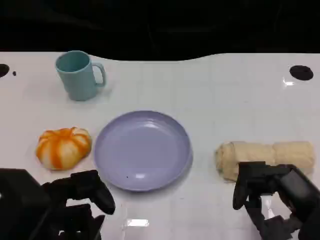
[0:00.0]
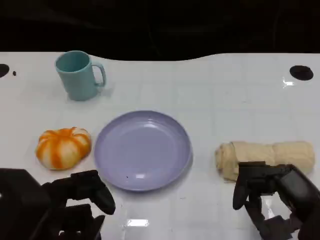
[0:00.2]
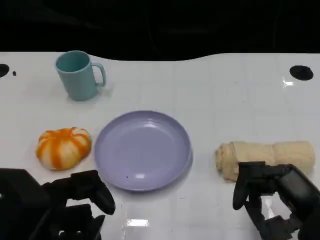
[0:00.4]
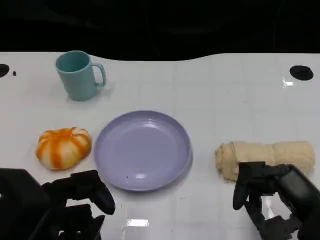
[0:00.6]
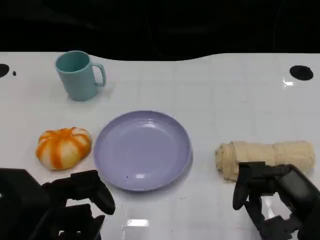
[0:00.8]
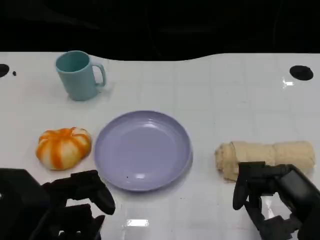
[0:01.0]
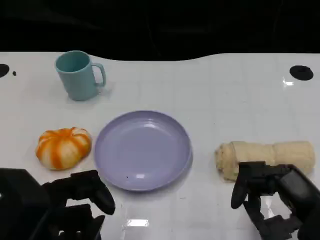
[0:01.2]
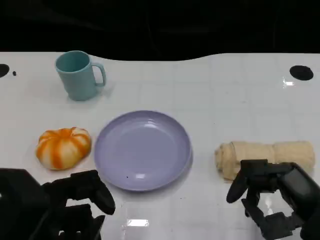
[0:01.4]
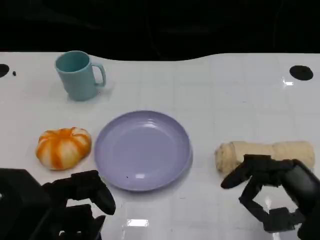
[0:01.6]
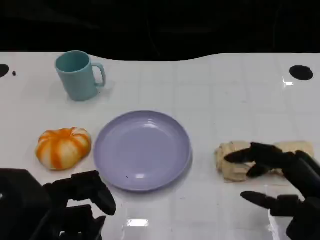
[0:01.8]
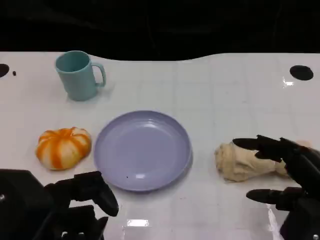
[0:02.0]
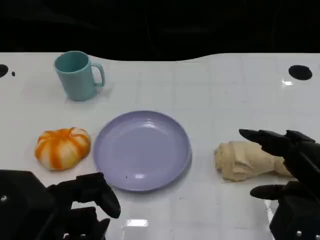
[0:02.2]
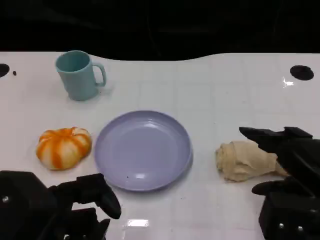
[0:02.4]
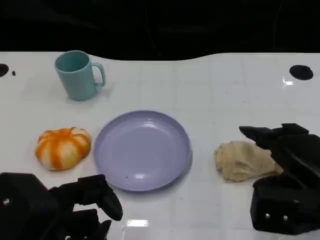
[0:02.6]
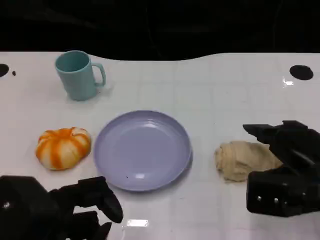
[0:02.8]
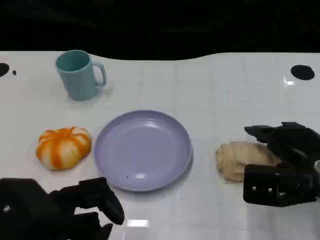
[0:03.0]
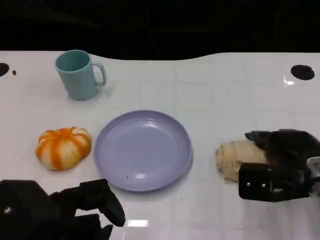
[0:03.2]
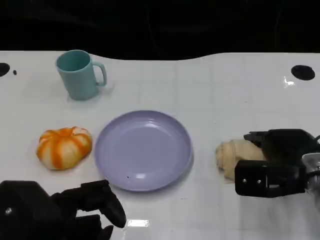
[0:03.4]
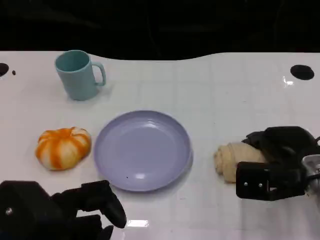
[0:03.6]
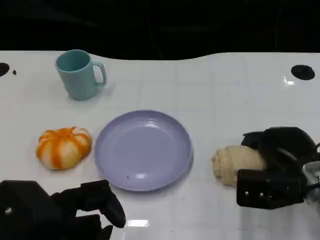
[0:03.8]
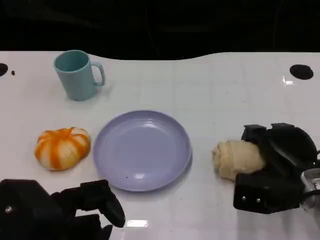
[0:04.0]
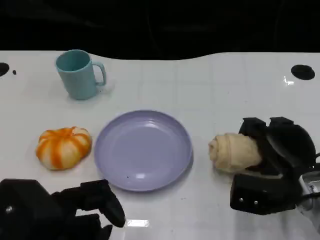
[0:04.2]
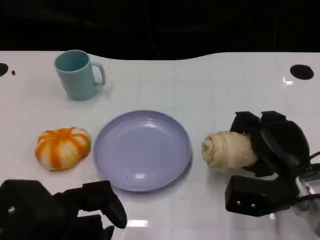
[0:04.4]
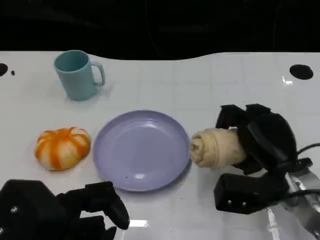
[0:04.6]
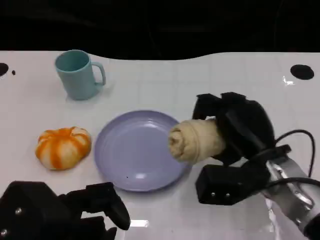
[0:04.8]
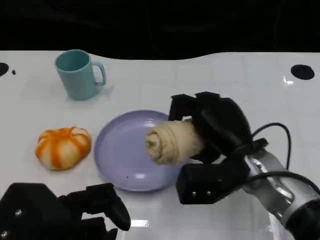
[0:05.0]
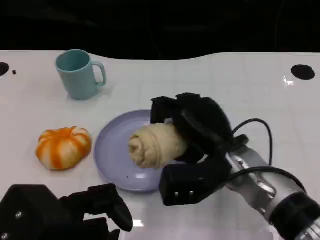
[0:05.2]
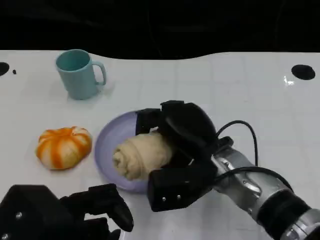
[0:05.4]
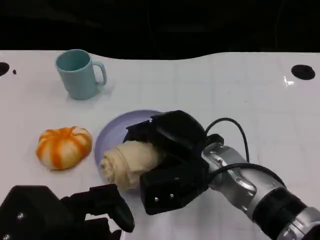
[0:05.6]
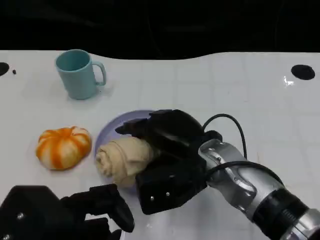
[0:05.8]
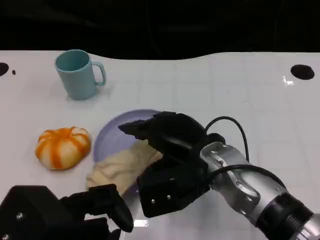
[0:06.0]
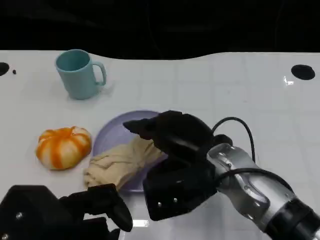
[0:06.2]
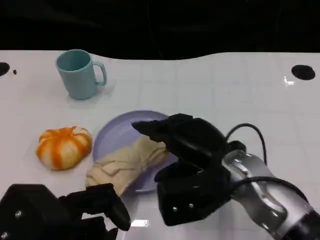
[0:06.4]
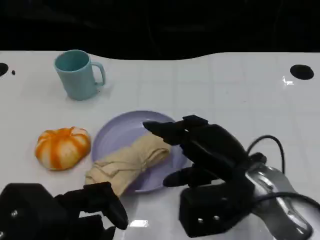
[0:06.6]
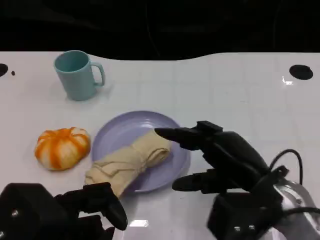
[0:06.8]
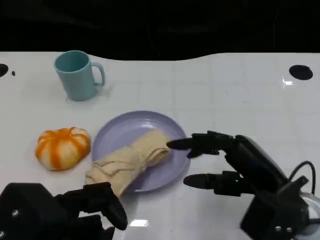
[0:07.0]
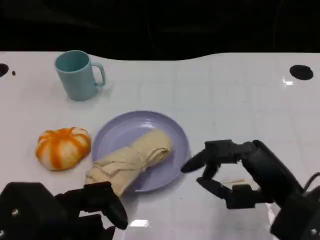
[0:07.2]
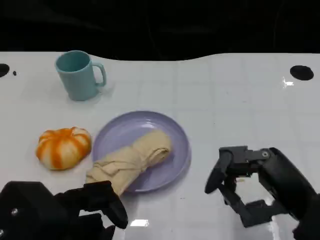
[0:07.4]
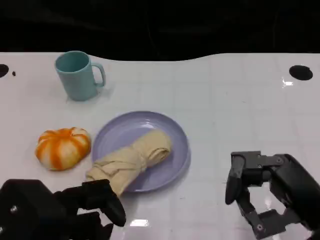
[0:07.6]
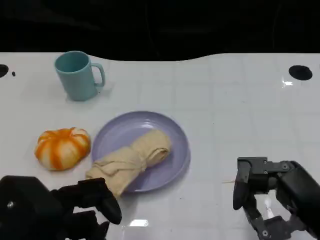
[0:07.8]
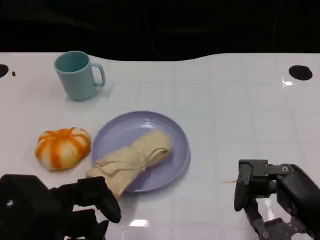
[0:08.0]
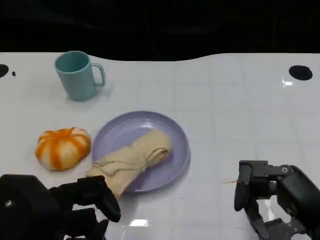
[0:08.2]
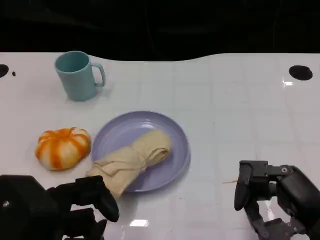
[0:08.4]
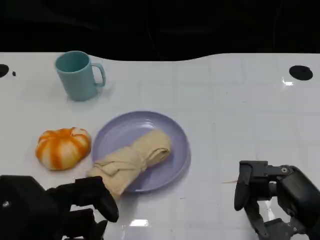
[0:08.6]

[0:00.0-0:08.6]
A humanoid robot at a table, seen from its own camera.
Task of the whole recording: Grasp the towel on the left side of the plate with the left hand and place it into the plate.
0:00.0 to 0:01.4: The two hands keep their place.
0:01.4 to 0:02.8: The right hand travels forward by approximately 10 cm.
0:02.8 to 0:04.4: The right hand ends up roughly 5 cm from where it was.
0:04.4 to 0:05.8: The right hand is displaced to the left and upward by some 15 cm.
0:05.8 to 0:07.2: The right hand is displaced to the right and backward by approximately 15 cm.
0:07.2 to 0:08.6: The hands move only a little.

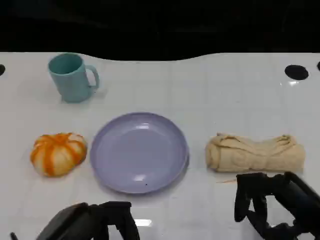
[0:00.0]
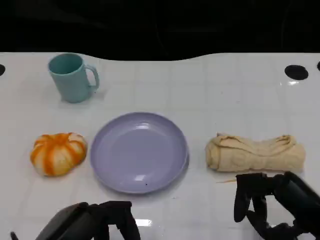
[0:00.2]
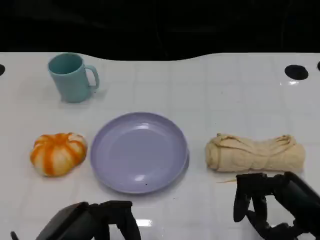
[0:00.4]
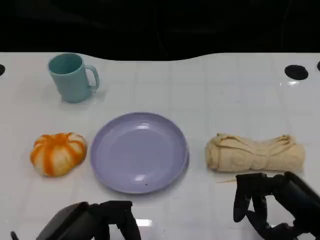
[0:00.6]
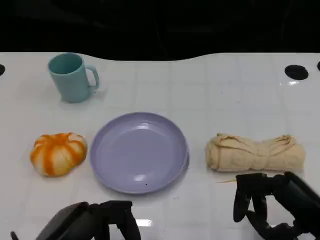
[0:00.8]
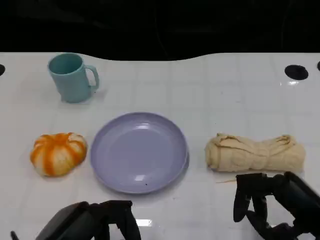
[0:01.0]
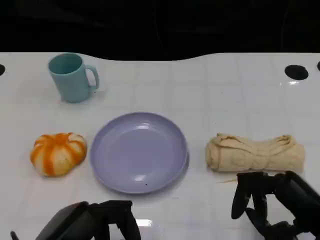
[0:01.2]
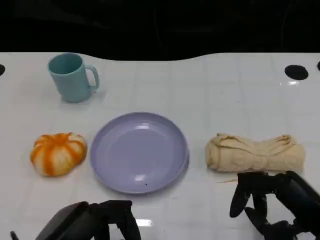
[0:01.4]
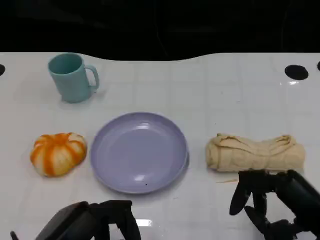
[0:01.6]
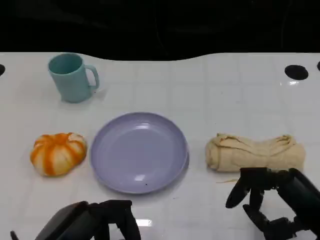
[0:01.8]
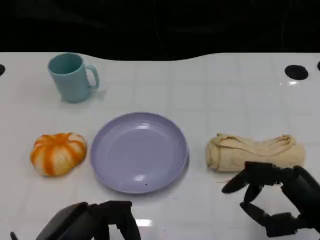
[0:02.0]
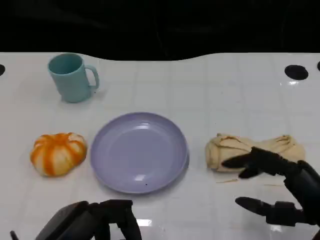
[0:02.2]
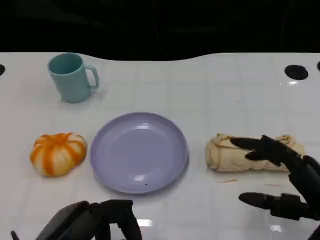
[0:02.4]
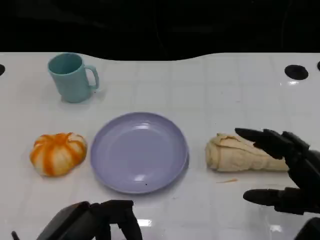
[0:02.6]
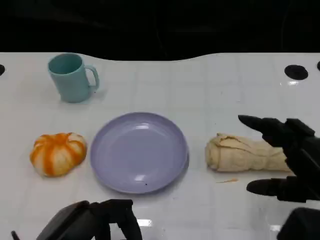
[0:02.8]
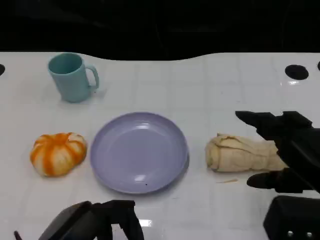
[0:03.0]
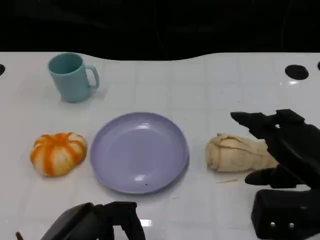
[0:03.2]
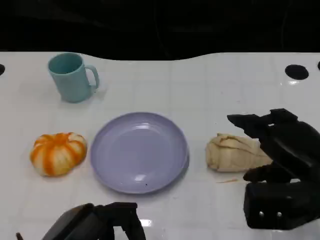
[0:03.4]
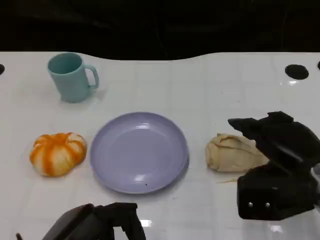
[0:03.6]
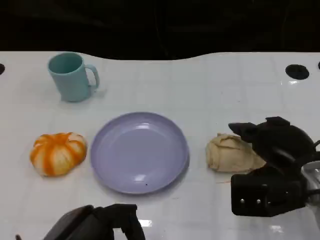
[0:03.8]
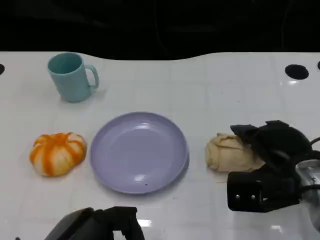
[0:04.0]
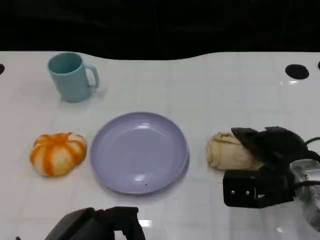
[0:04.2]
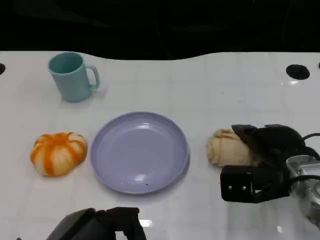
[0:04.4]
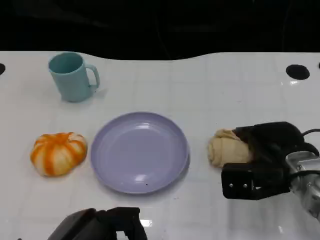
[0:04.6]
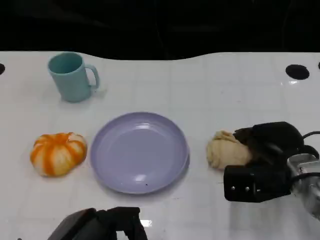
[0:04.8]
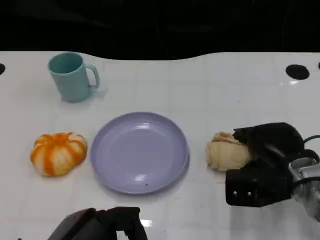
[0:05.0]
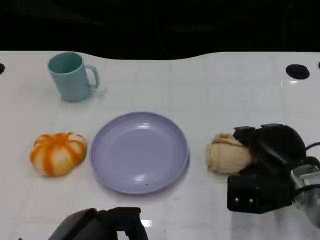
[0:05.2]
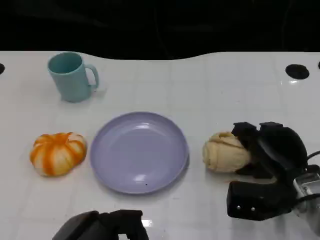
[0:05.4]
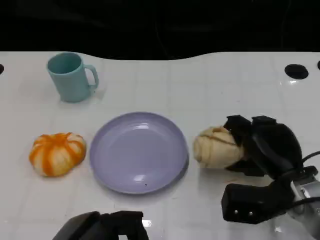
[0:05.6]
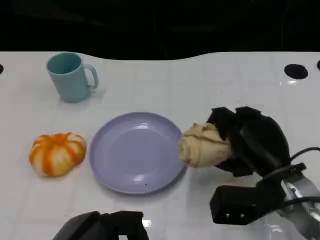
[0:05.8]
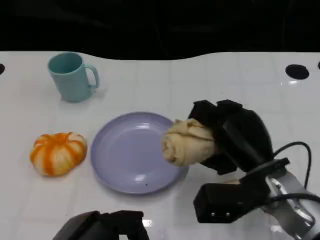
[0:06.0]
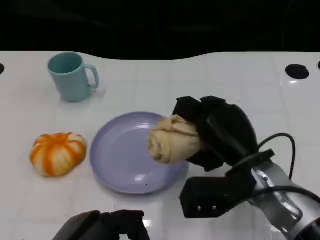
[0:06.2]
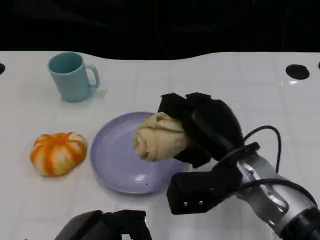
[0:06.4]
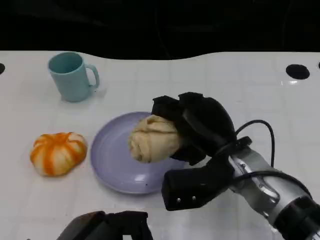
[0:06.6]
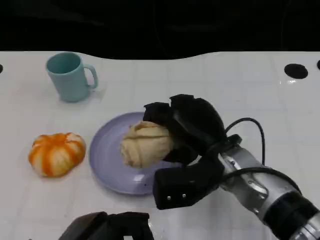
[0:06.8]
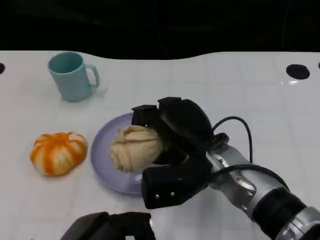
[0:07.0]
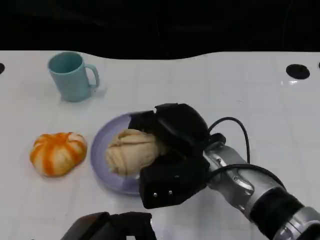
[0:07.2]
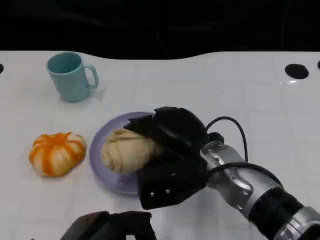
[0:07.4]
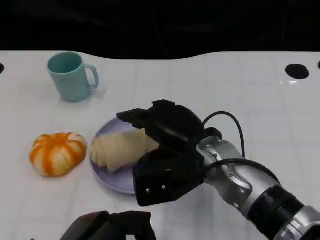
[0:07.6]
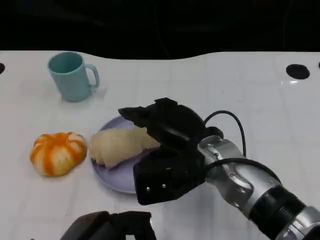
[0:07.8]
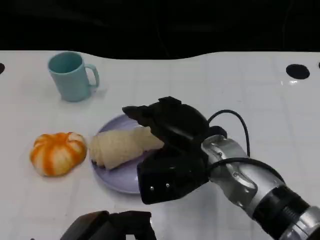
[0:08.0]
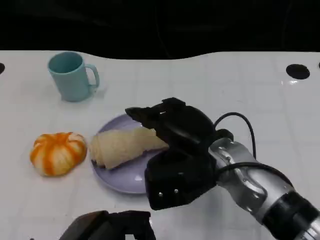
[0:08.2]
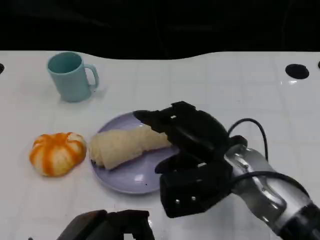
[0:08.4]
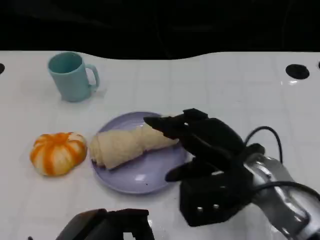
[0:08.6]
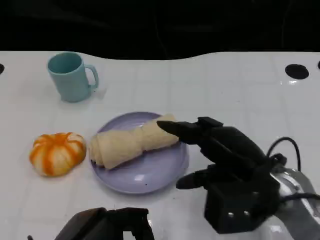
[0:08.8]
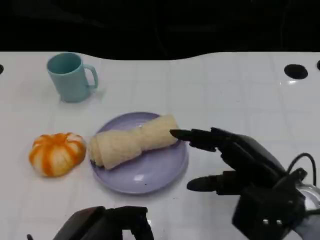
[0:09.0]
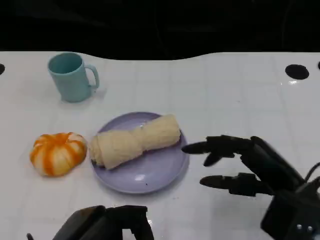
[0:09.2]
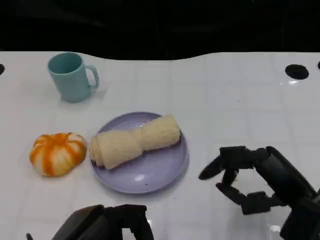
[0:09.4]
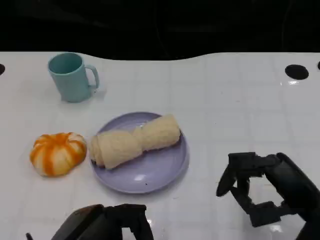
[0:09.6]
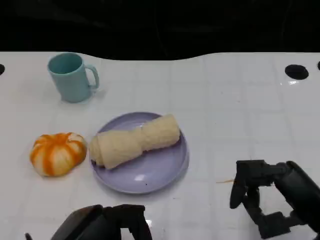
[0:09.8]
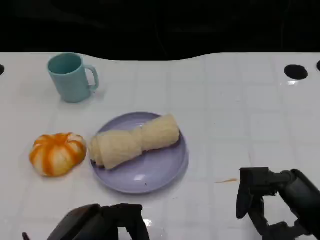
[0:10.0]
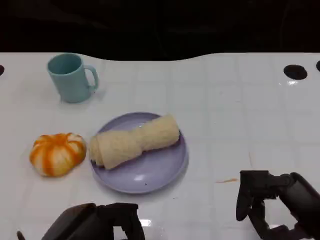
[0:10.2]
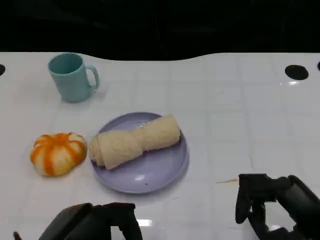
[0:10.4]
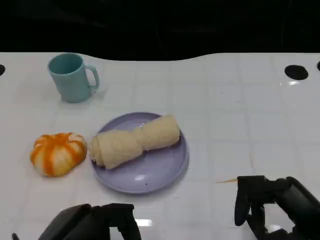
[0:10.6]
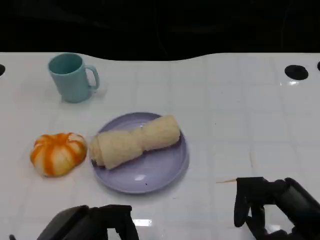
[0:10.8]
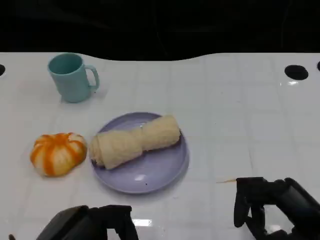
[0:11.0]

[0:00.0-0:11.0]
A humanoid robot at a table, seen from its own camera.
Task of the whole recording: Grasp the towel on the left side of the plate with the left hand and place it into the plate.
0:00.0 to 0:01.6: Neither hand changes place.
0:01.6 to 0:03.2: The right hand moves roughly 5 cm.
0:03.2 to 0:04.8: The right hand shifts some 10 cm forward and downward.
0:04.8 to 0:06.2: The right hand shifts roughly 5 cm to the left.
0:06.2 to 0:07.8: The right hand travels to the left by approximately 5 cm.
0:07.8 to 0:09.4: The right hand goes about 15 cm to the right and backward.
0:09.4 to 0:11.0: The hands move only a little.
